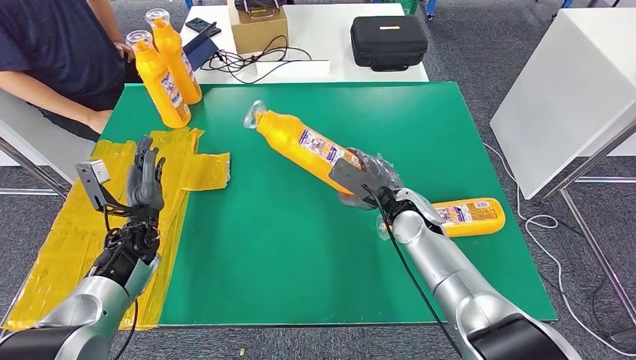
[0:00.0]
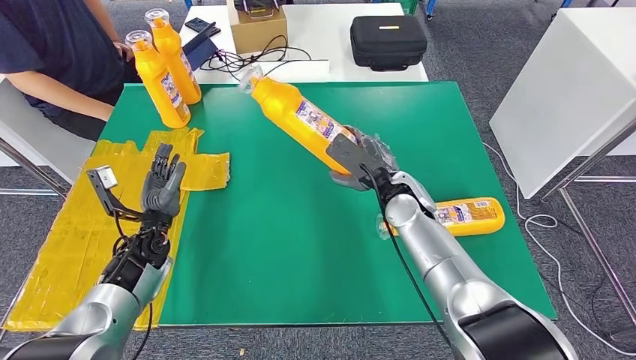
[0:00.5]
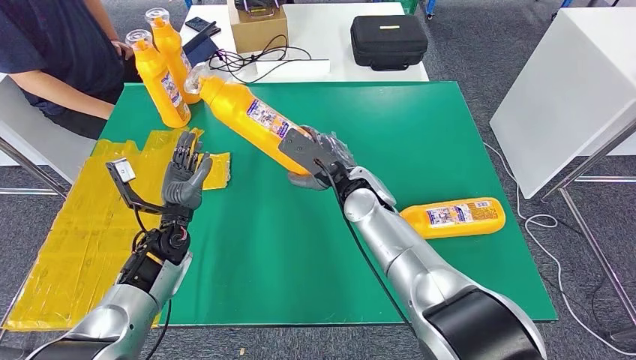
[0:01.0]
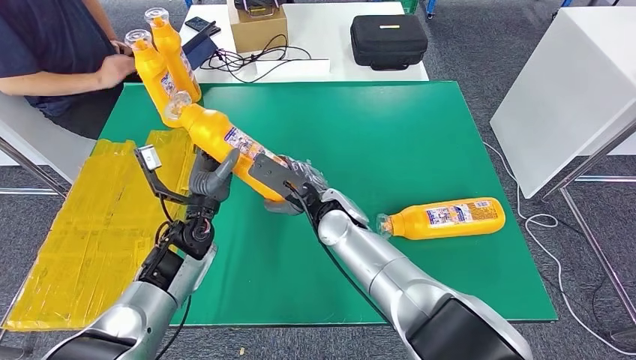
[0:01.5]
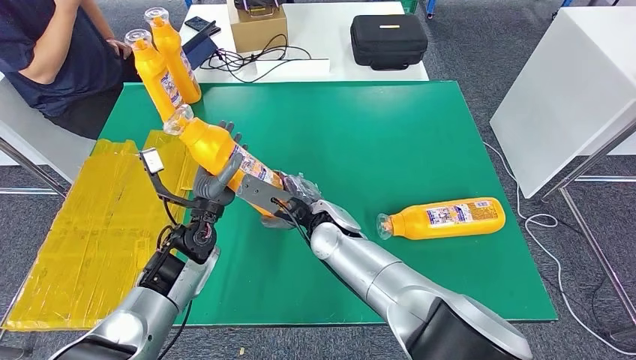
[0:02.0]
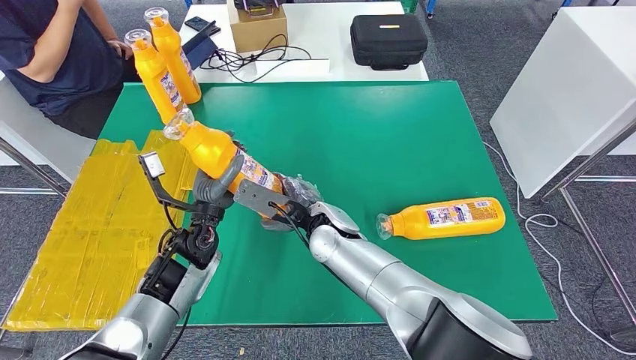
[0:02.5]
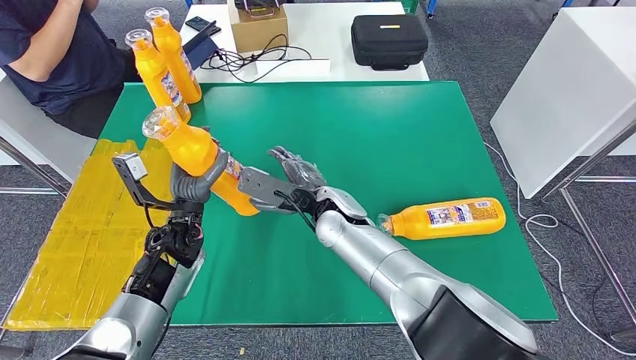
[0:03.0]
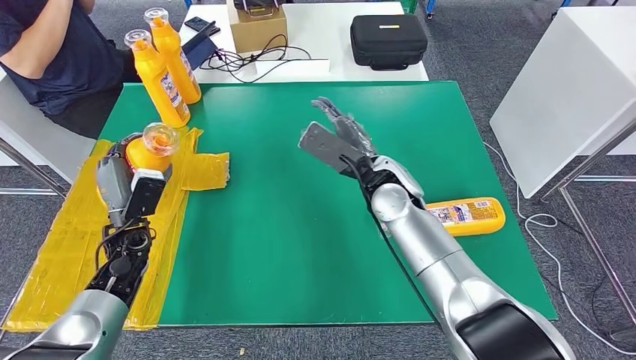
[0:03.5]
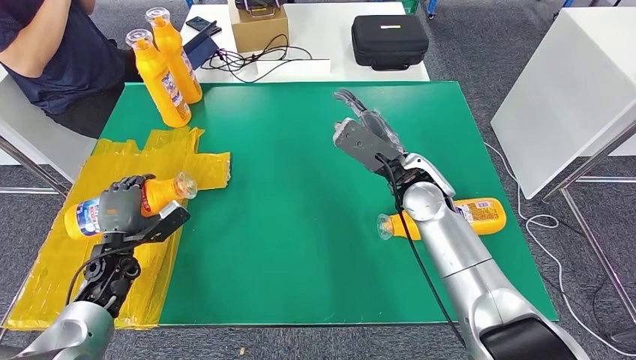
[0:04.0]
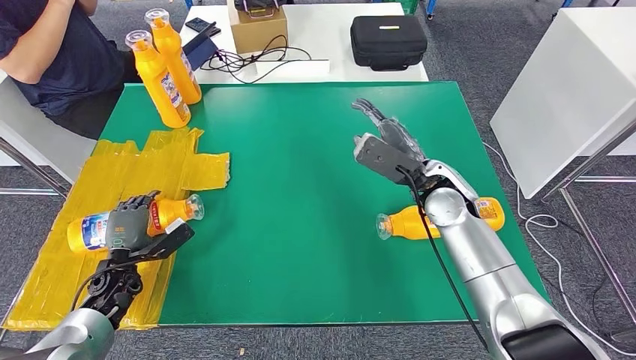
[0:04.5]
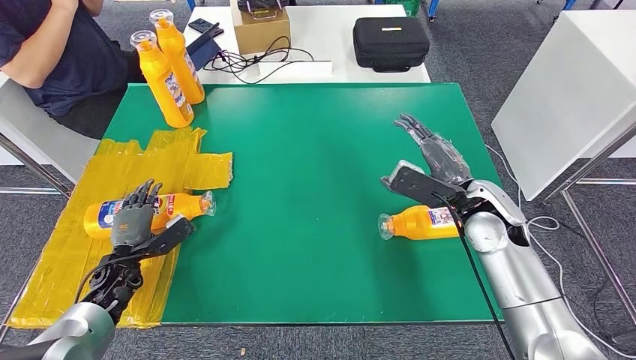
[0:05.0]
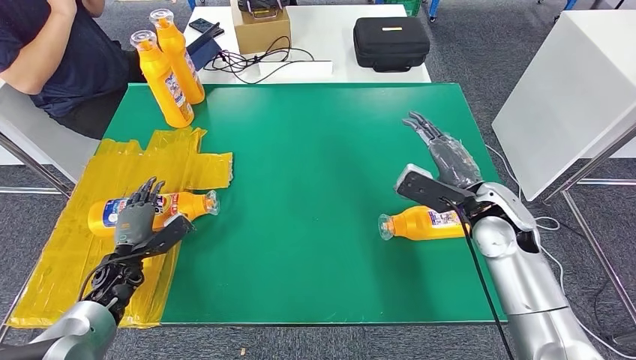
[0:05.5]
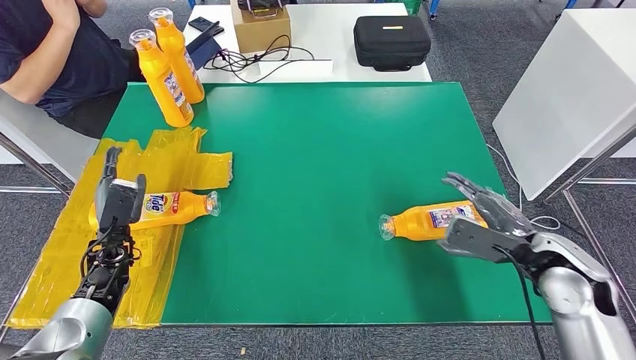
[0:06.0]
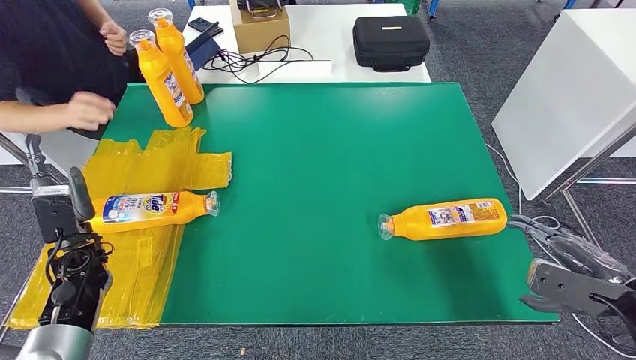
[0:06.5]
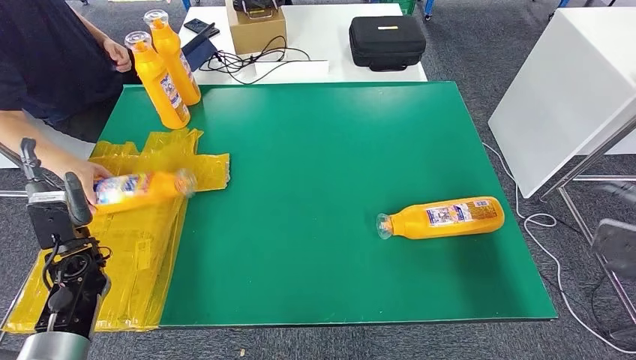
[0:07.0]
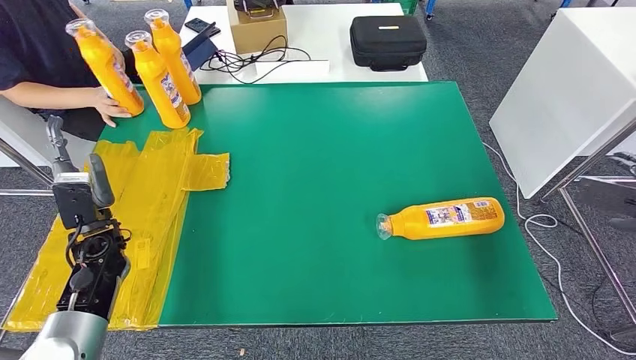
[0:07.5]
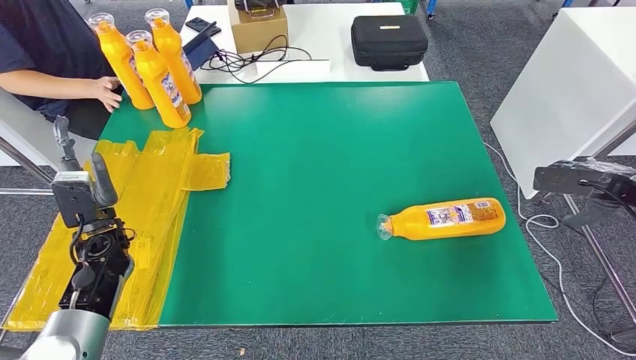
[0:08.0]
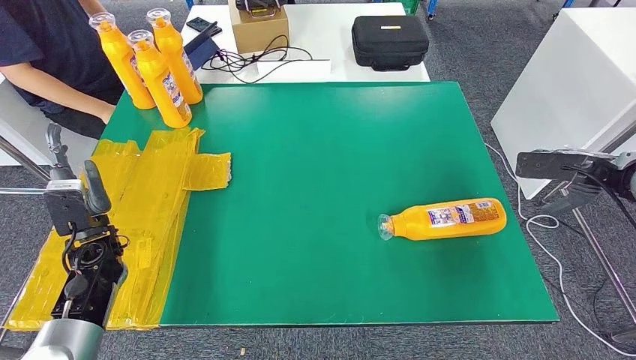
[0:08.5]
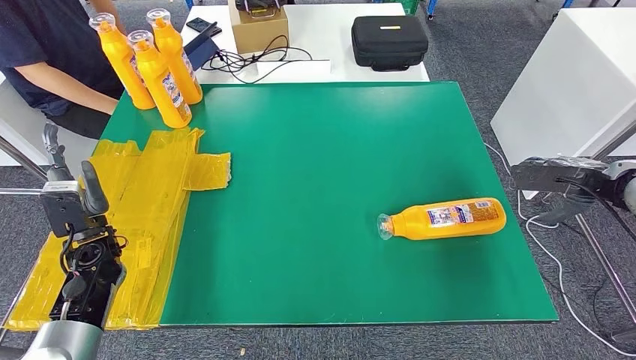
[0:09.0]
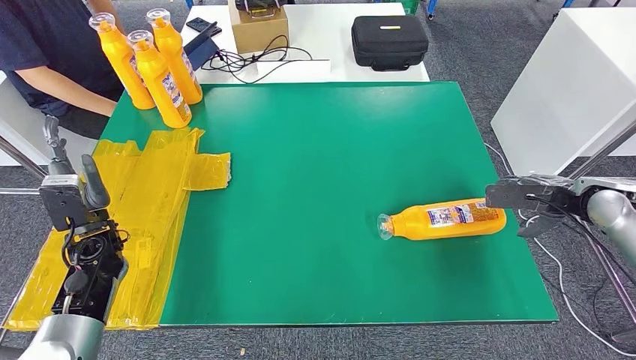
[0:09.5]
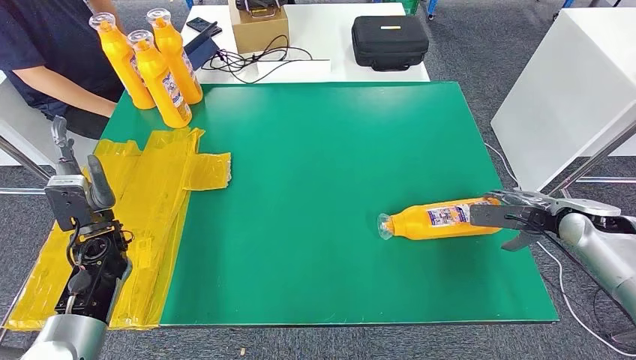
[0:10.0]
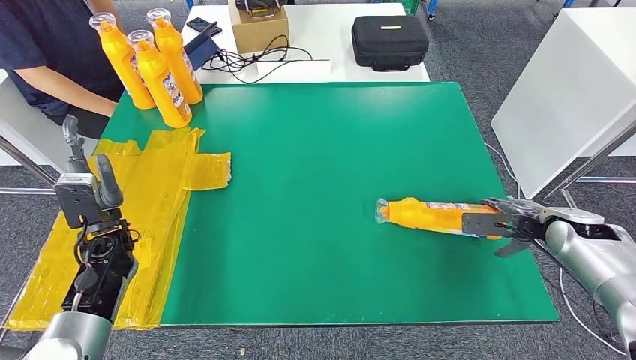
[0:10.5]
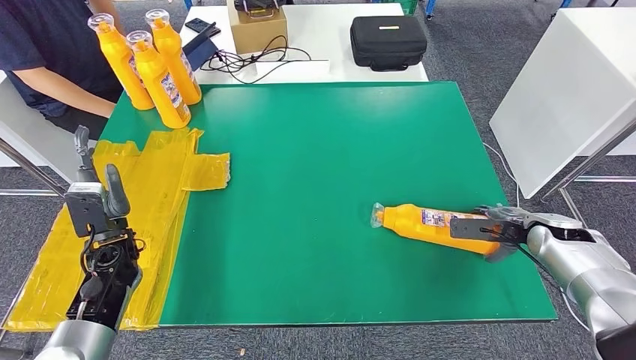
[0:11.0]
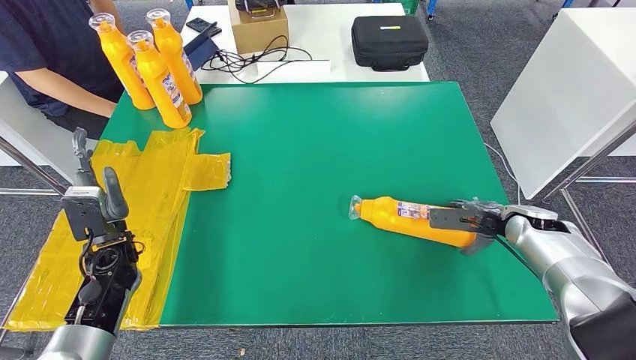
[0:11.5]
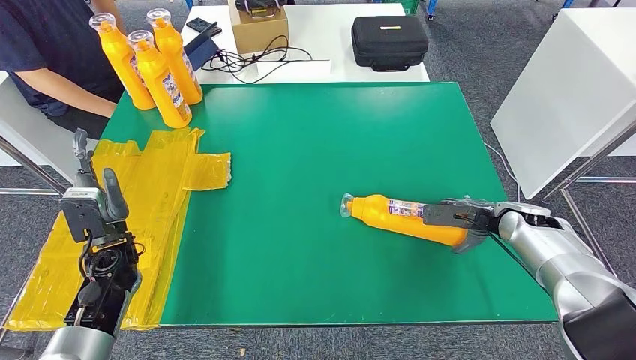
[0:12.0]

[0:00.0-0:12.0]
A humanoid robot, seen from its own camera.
Step, 0:02.5 to 0:06.0: Flip the fast-moving consumer goods bottle to the front side.
0:08.0 to 0:10.0: The right hand travels downward and to the left by about 10 cm.
0:10.0 to 0:12.0: The right hand moves to the left, about 10 cm.

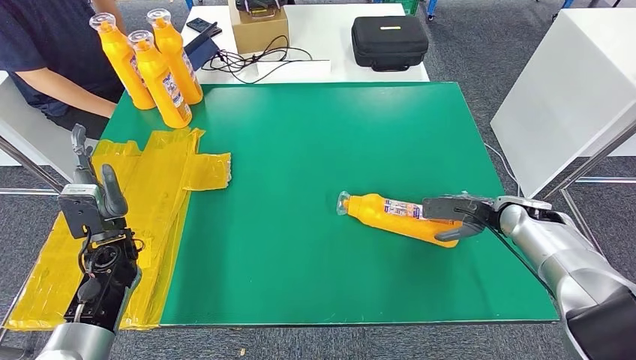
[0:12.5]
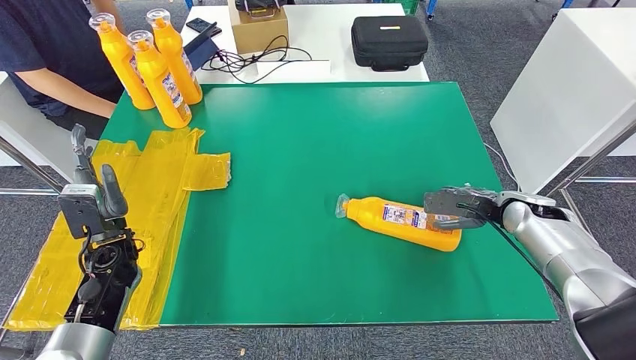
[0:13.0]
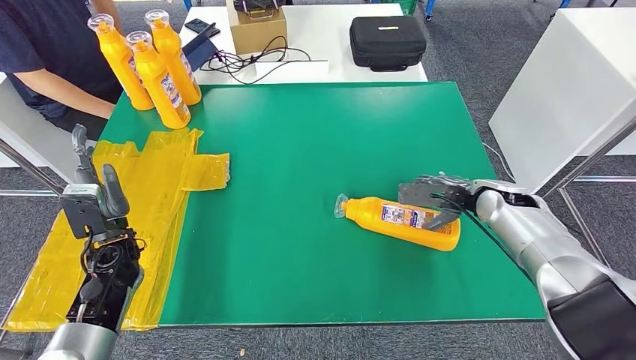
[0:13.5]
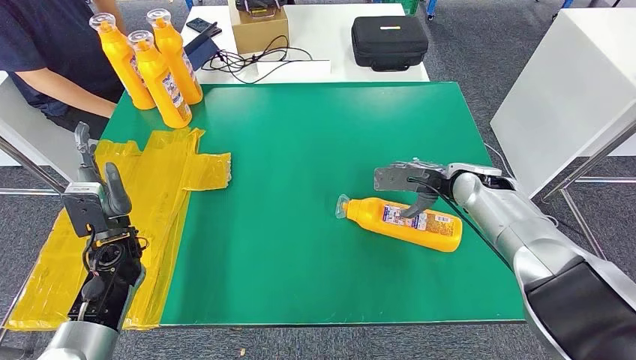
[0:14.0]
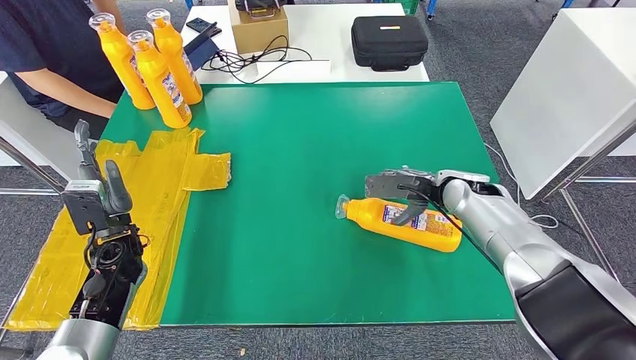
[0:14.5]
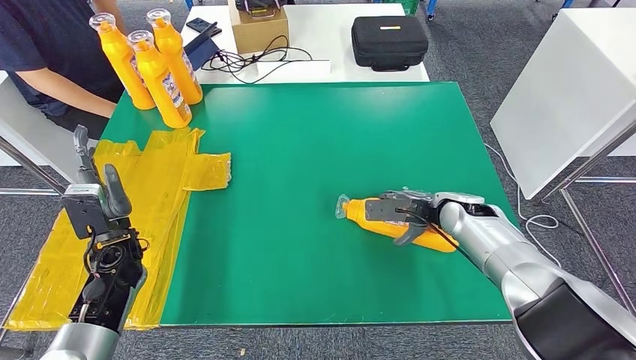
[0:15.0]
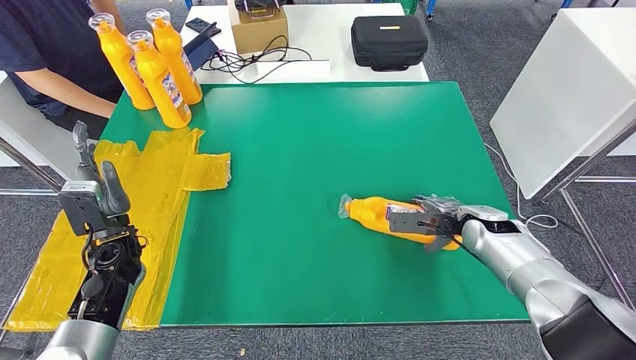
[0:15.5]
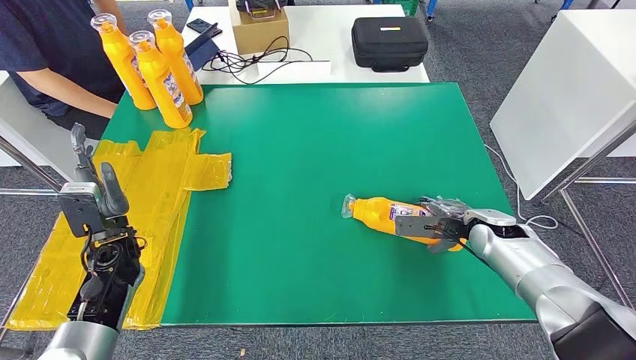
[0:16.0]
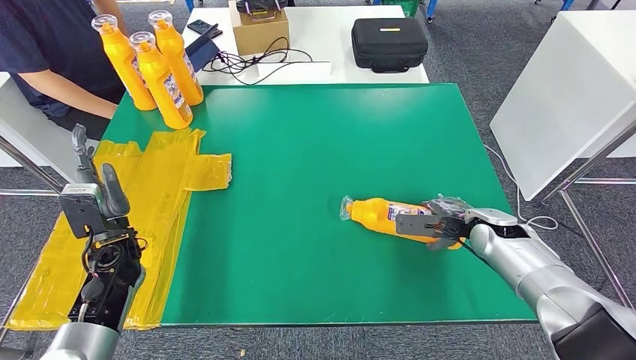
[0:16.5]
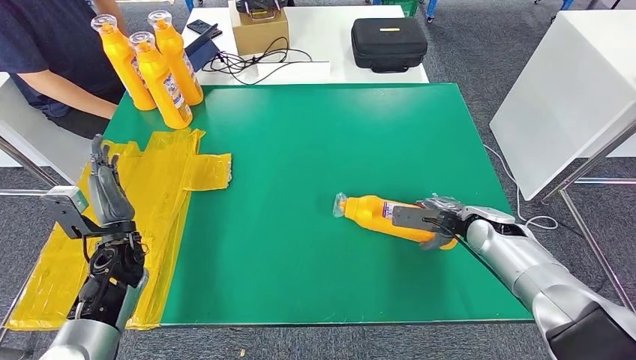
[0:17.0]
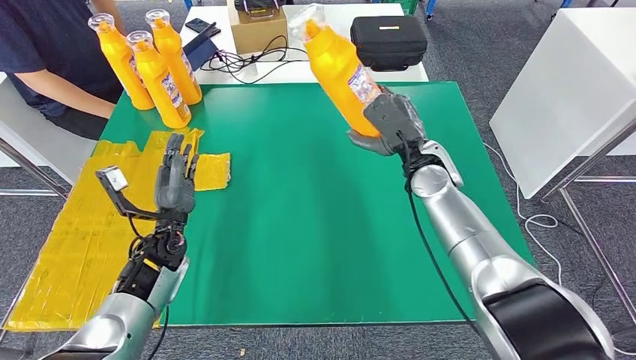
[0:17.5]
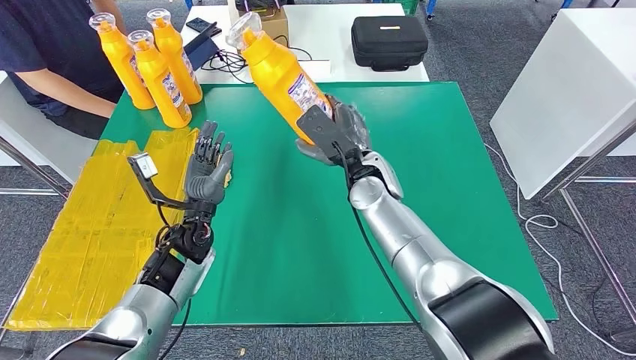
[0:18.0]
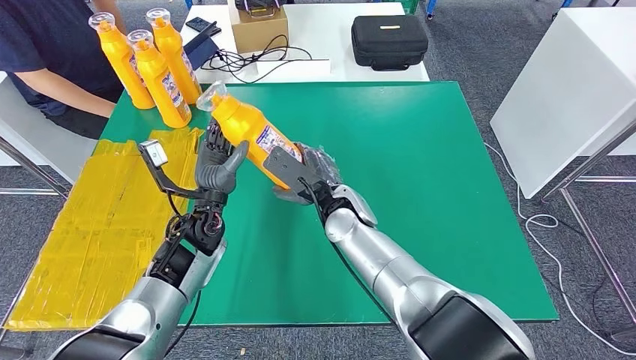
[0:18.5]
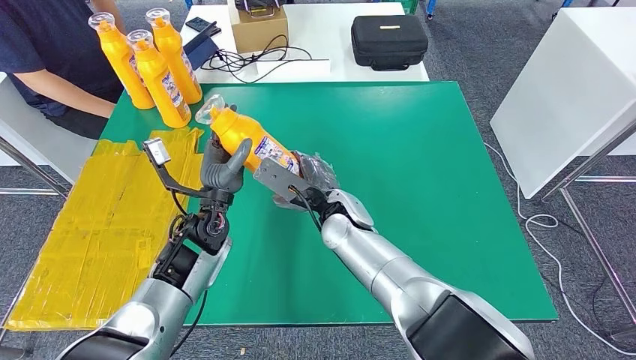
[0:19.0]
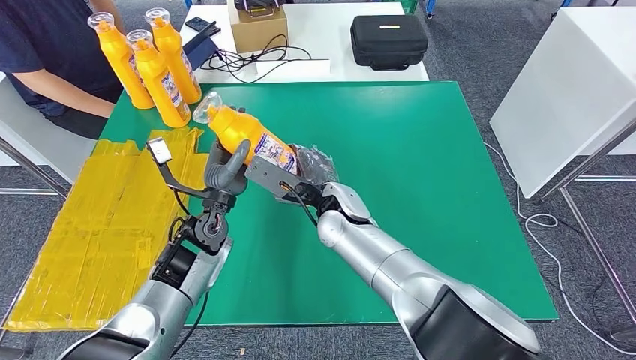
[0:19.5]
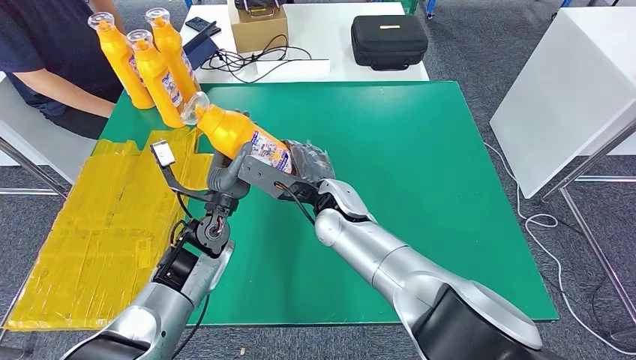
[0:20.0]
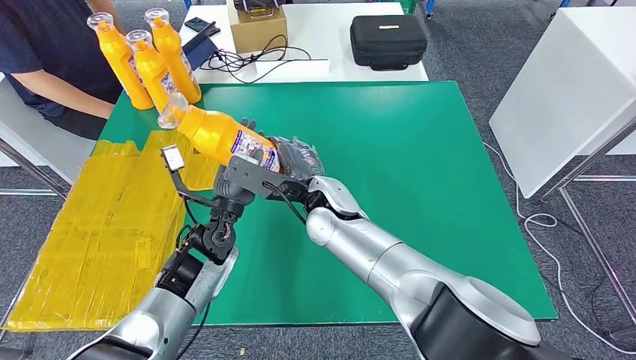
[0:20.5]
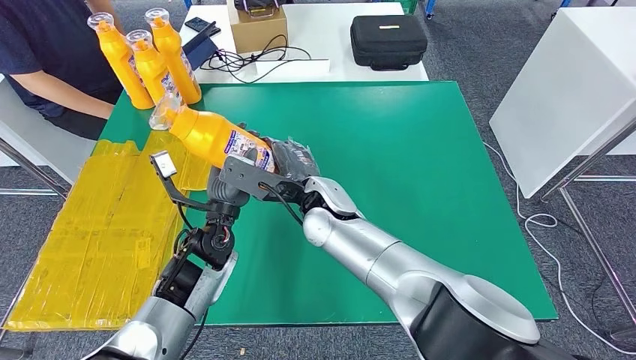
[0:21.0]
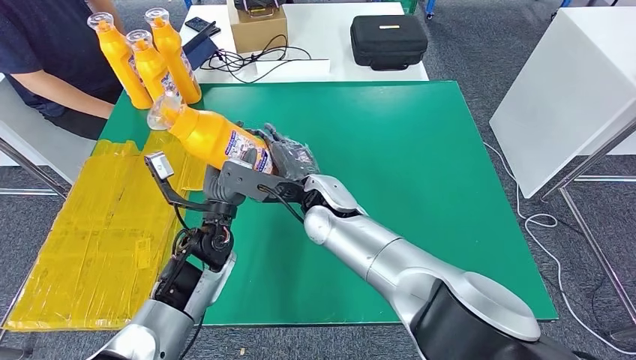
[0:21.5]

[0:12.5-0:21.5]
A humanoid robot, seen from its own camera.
Step, 0:14.5 to 0:17.0: Pick up the fast-moving consumer goods bottle from the table.
0:12.5 to 0:14.5: The right hand moves to the left, roughly 10 cm.
0:14.5 to 0:17.0: The right hand heads to the right and downward, covering roughly 10 cm.
0:19.5 to 0:21.5: There are only small adjustments of the hands.
